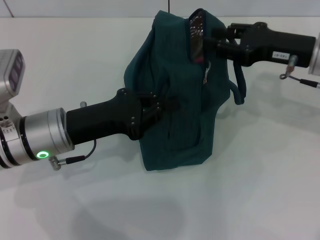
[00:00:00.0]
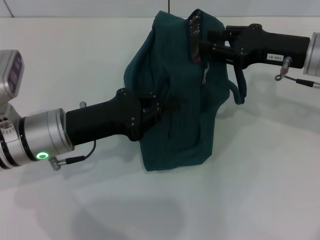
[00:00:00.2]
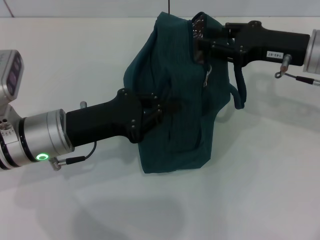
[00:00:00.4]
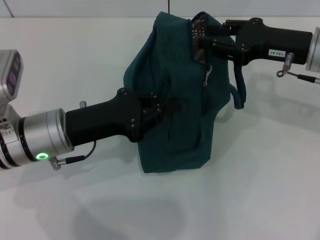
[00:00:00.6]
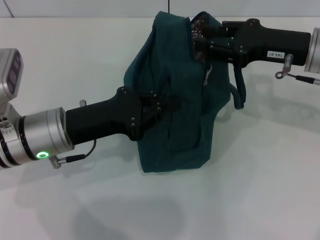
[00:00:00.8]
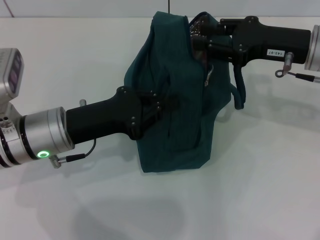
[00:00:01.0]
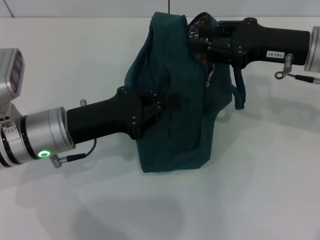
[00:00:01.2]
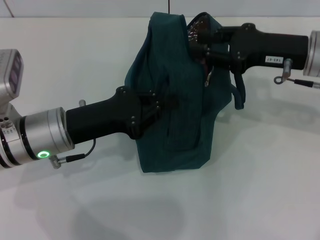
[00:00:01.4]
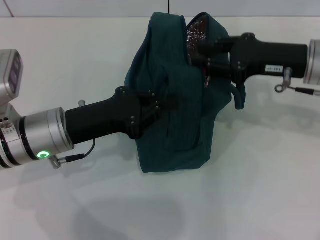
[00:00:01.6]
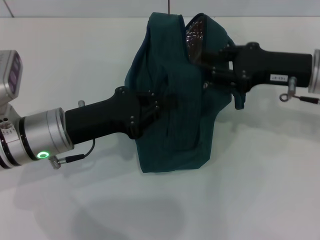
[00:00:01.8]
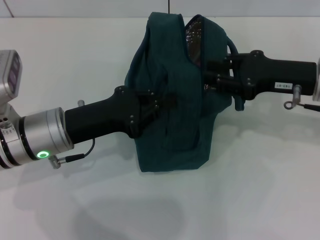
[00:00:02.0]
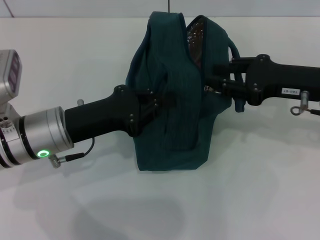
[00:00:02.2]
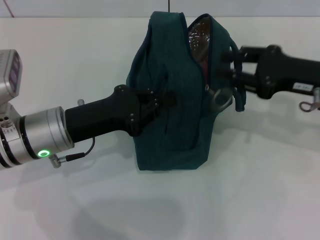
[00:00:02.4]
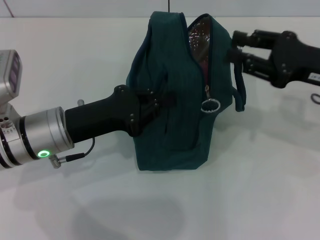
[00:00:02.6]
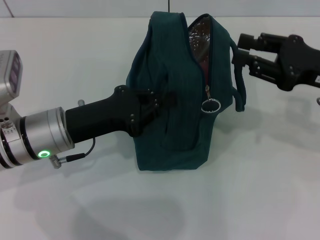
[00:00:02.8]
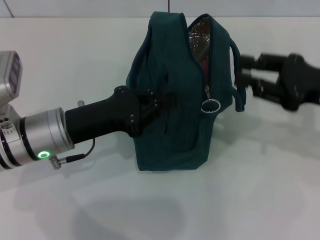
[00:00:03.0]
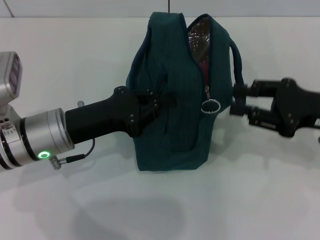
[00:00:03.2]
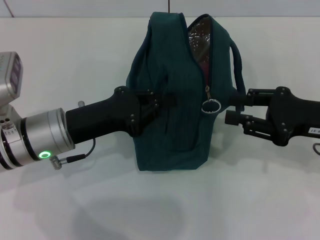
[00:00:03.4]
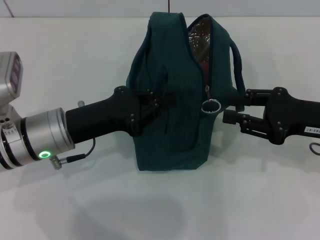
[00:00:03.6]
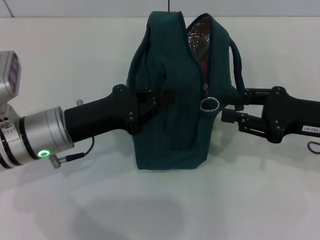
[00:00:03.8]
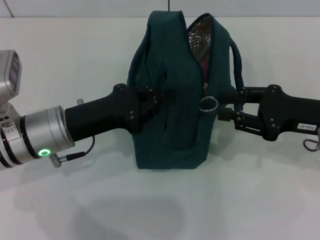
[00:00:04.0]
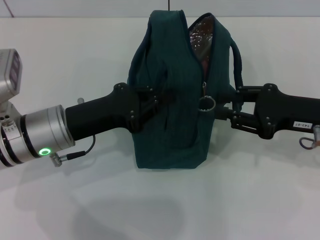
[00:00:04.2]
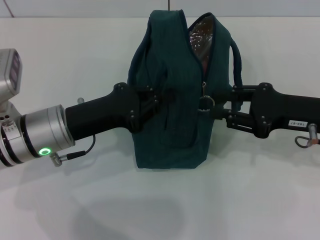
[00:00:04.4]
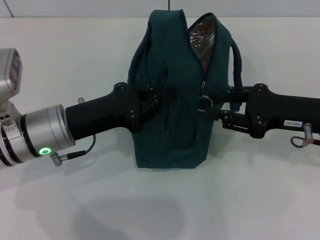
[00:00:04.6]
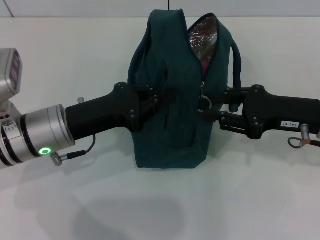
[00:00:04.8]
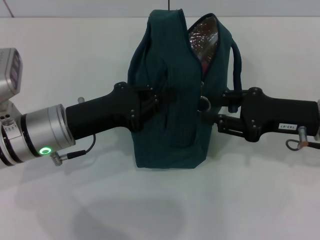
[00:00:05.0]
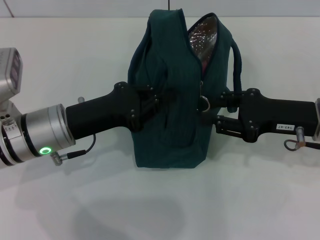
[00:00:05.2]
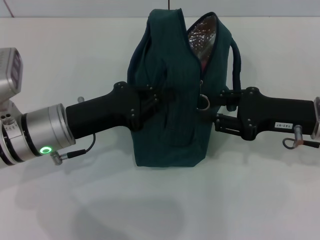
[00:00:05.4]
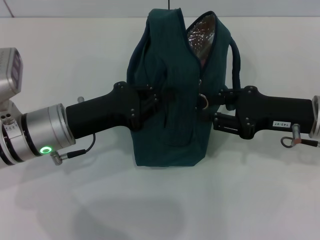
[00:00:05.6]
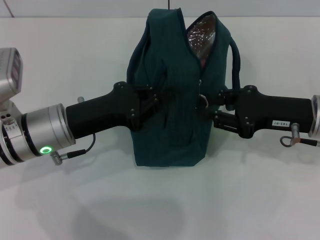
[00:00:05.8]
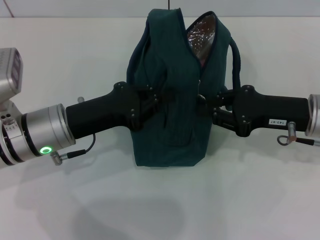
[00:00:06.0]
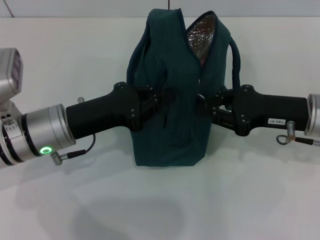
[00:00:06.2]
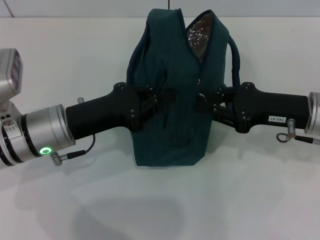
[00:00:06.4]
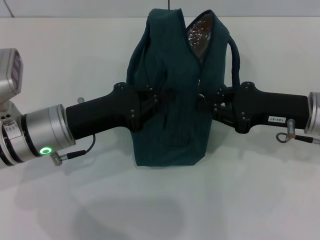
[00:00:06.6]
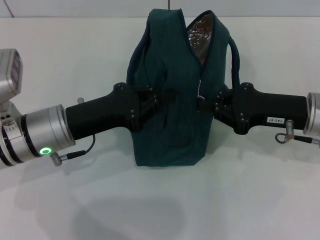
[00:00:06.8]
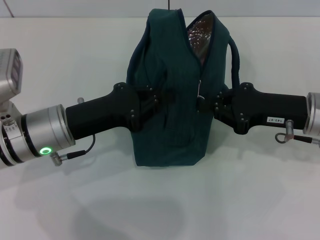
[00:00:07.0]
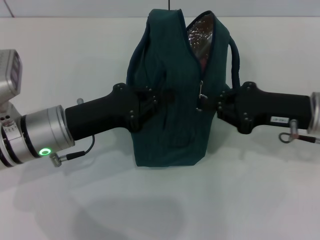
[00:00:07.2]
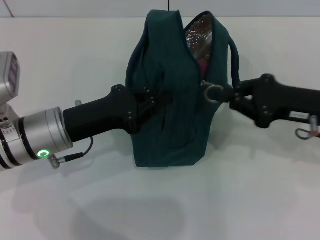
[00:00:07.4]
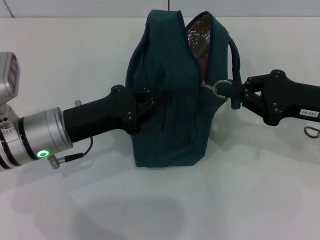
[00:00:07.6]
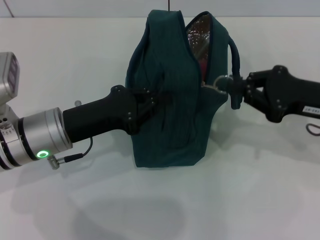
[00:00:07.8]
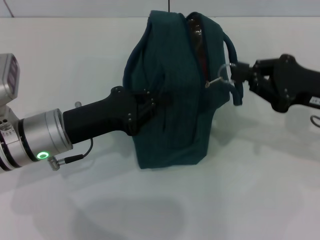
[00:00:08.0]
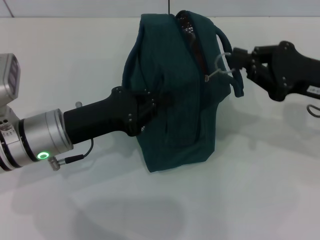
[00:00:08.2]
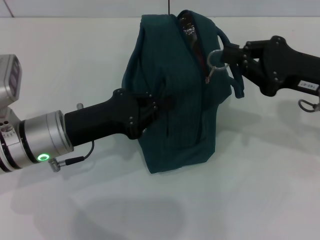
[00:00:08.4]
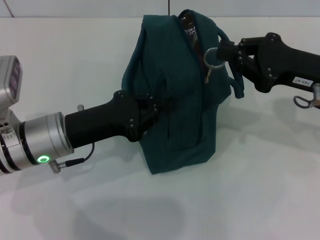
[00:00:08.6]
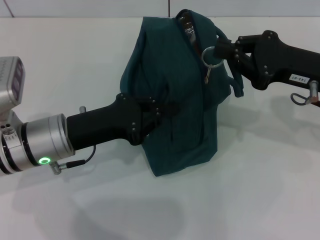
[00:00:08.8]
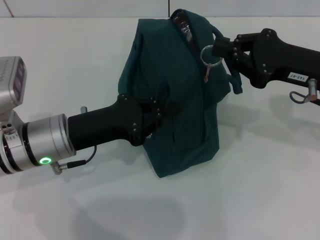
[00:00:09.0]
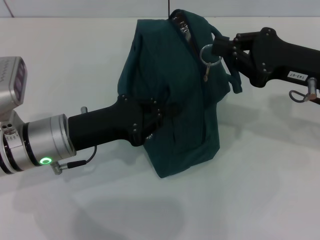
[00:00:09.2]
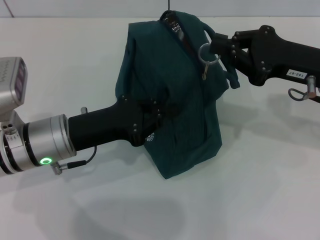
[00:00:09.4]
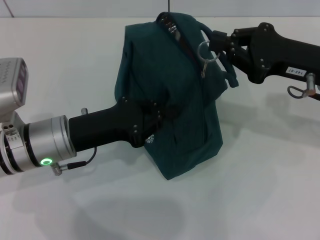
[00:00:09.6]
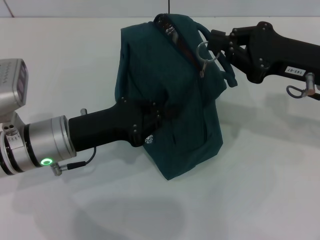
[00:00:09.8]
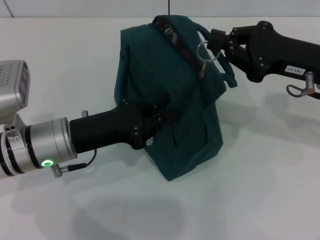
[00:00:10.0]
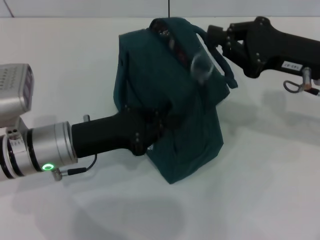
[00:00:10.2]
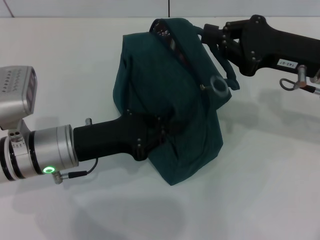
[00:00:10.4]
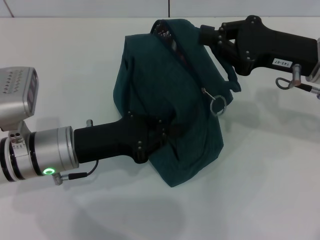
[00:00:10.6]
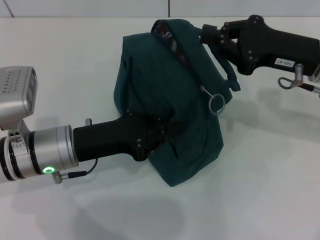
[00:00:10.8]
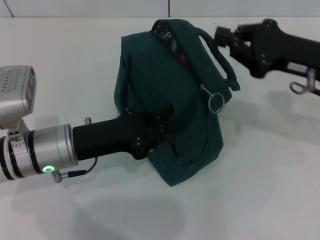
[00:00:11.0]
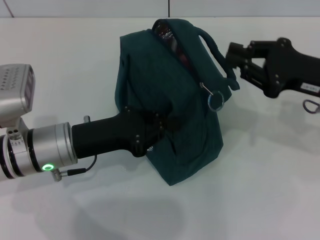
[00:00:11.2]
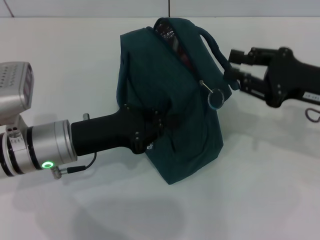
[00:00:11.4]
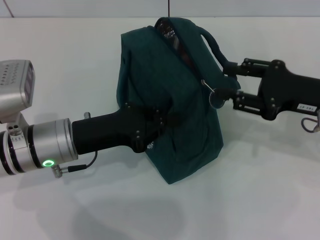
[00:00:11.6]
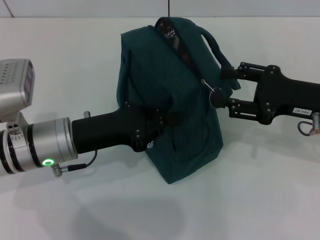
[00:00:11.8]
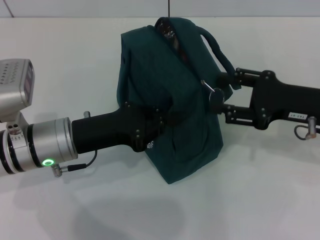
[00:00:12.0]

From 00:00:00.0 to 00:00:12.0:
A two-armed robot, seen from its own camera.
From 00:00:00.0 to 00:00:01.6: The grippers move only a little.
From 00:00:01.6 to 00:00:03.0: The right gripper goes approximately 10 cm to the right and backward.
From 00:00:03.0 to 00:00:09.0: There are only small adjustments of the grippers.
From 00:00:09.0 to 00:00:10.4: There are only small adjustments of the grippers.
From 00:00:10.4 to 00:00:12.0: The right gripper moves some 5 cm, and opens.

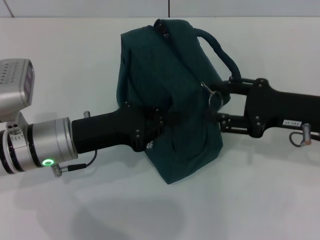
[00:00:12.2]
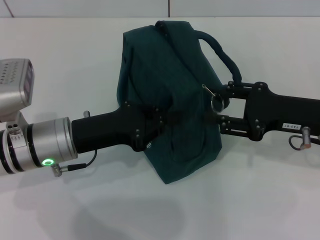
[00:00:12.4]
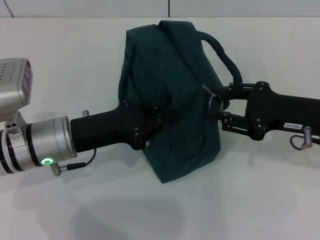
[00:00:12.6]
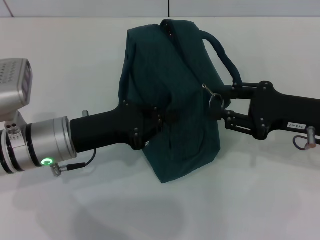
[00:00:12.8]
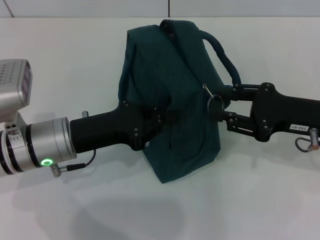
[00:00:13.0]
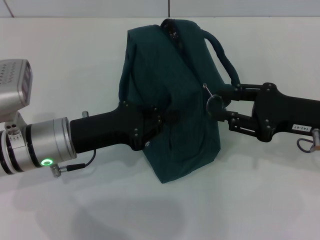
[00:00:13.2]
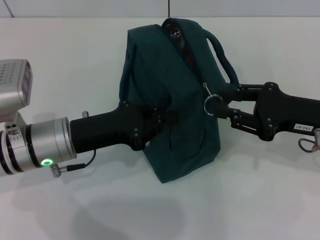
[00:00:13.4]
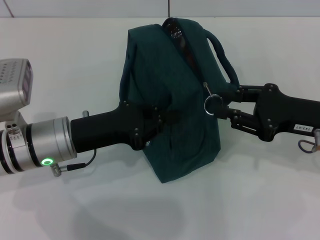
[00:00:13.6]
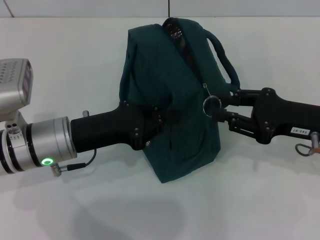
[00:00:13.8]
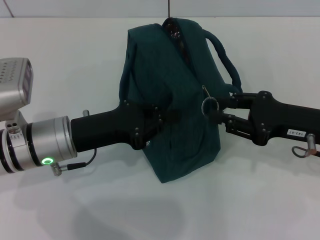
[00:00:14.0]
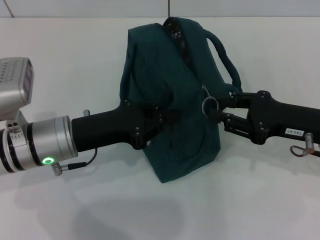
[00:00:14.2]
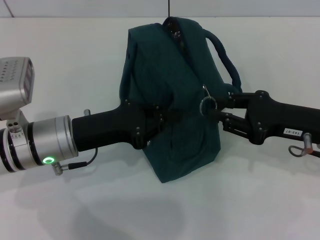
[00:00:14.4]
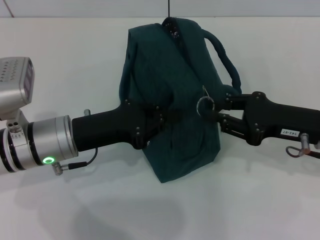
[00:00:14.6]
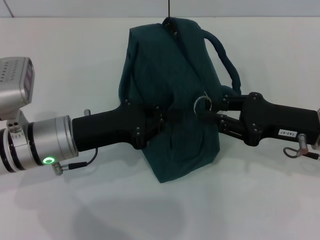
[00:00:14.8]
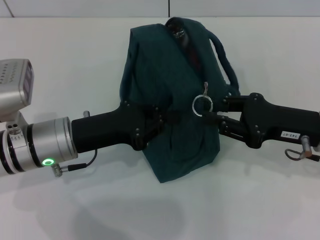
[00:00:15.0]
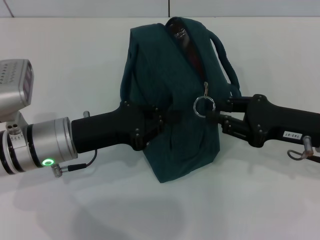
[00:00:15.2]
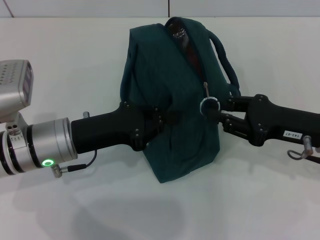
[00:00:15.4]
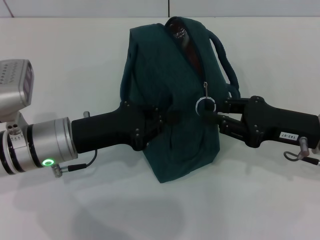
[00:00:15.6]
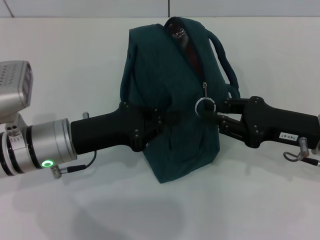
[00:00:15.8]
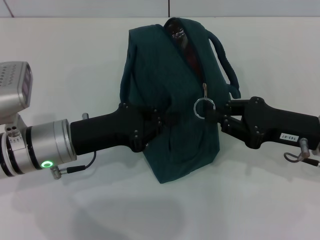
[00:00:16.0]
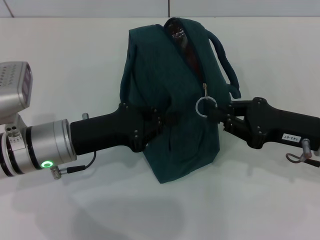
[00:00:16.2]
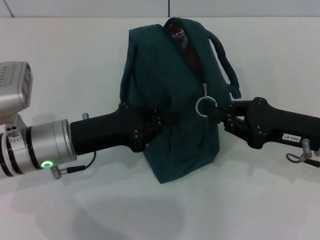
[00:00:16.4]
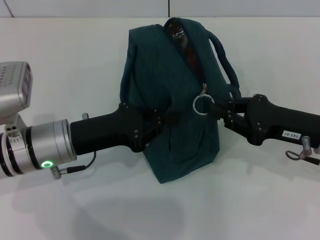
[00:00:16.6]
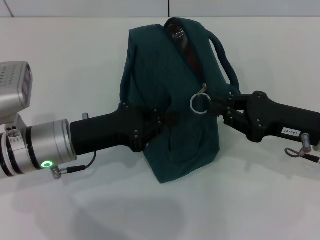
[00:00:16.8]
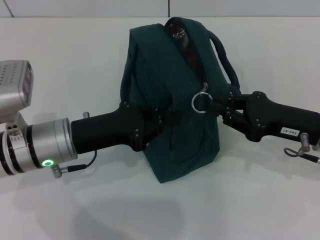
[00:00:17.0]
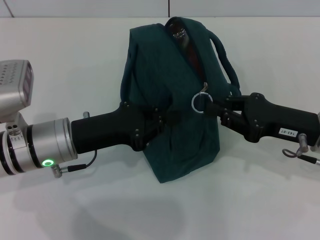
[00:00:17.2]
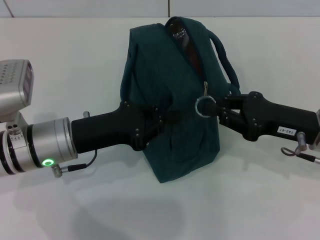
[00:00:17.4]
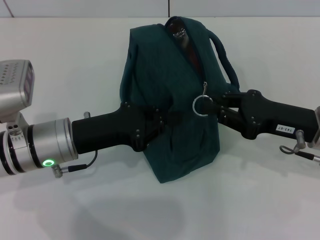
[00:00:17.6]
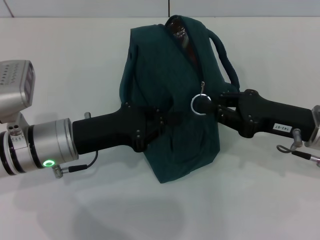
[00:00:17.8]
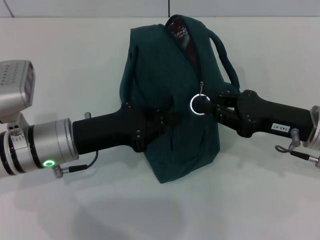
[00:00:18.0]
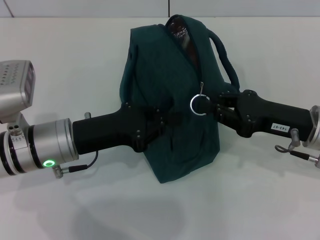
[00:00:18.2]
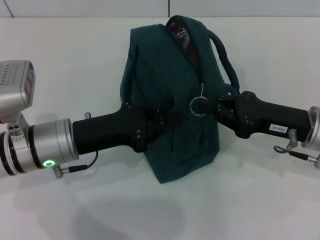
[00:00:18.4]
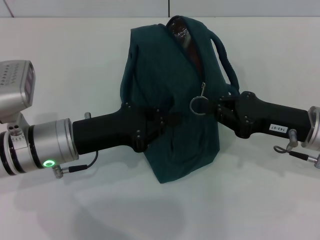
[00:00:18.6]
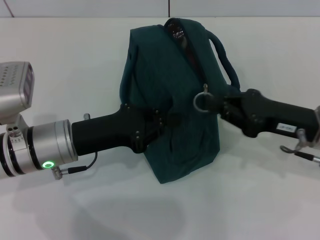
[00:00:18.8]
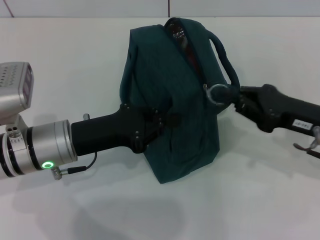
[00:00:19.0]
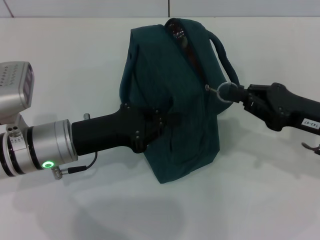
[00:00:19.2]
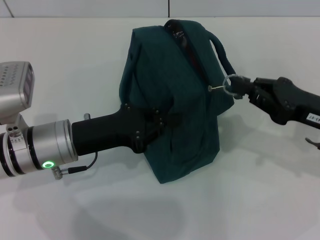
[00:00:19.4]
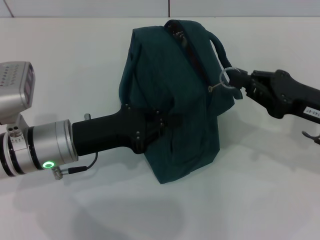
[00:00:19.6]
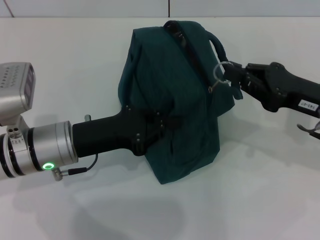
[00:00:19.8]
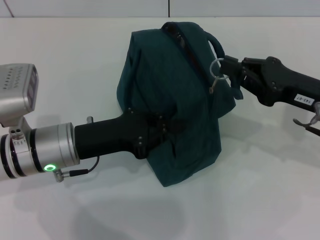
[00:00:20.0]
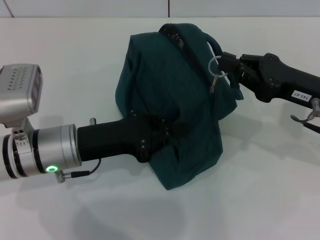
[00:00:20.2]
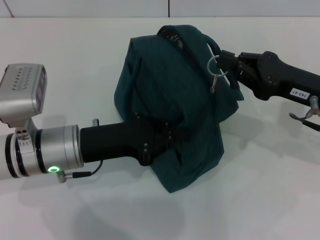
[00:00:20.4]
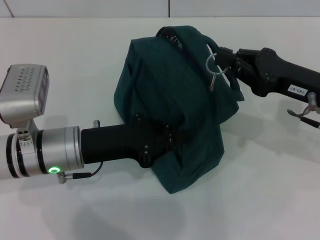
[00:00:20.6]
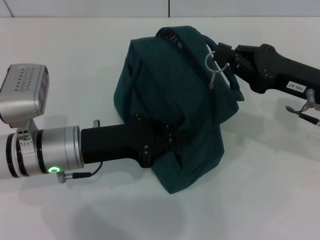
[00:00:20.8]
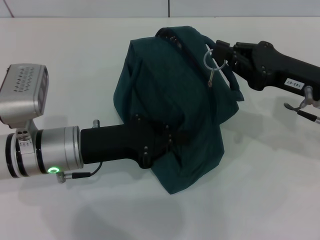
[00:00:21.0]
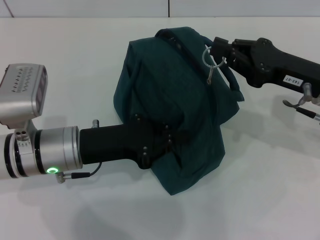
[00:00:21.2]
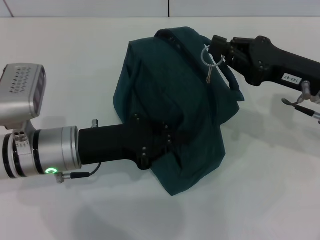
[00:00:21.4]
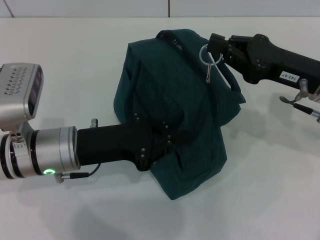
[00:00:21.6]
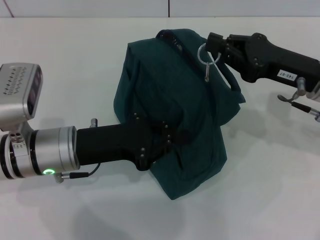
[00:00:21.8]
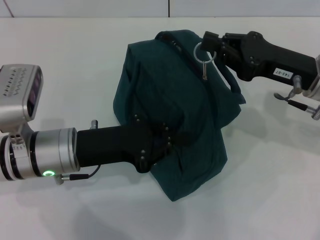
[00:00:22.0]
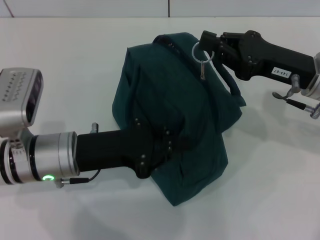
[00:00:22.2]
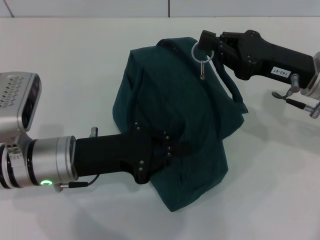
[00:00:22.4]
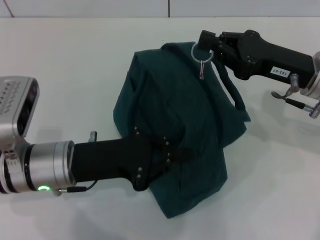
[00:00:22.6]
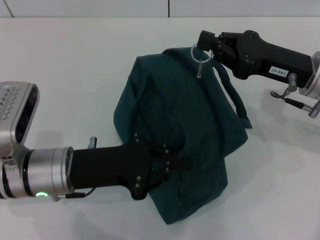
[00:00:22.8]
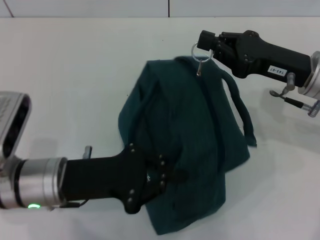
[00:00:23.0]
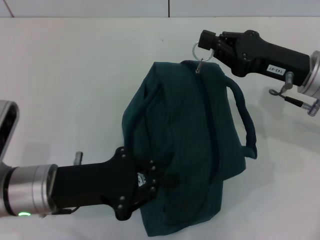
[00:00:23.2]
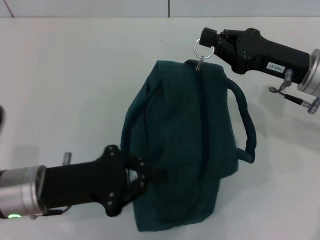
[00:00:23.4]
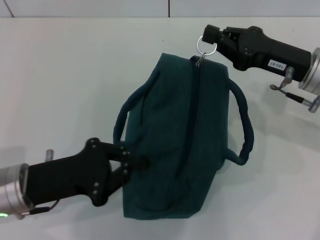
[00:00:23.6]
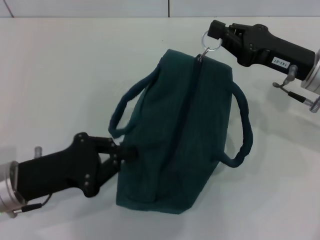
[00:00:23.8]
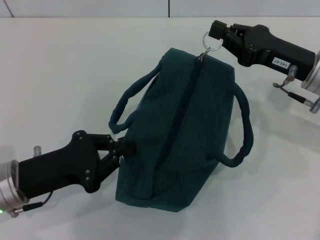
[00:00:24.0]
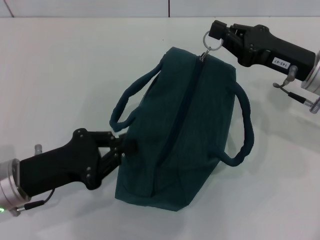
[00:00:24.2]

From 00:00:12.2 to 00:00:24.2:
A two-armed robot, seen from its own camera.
From 00:00:12.2 to 00:00:15.2: The grippers move only a little.
From 00:00:15.2 to 00:00:16.6: Both grippers stay about where they are.
From 00:00:16.6 to 00:00:21.2: There are only small adjustments of the grippers.
From 00:00:22.6 to 00:00:24.2: The left gripper travels to the left by roughly 5 cm.
